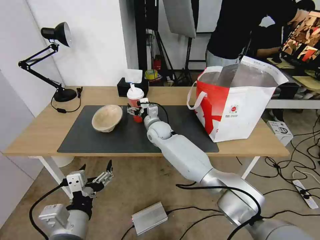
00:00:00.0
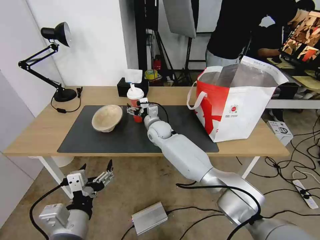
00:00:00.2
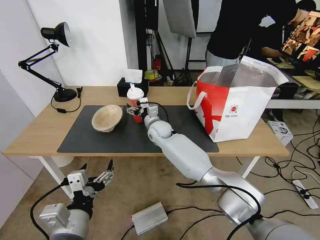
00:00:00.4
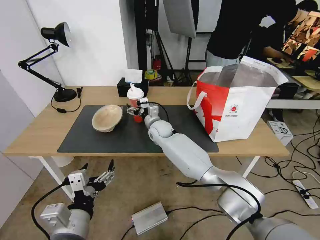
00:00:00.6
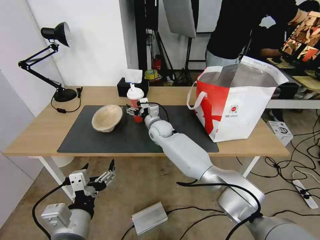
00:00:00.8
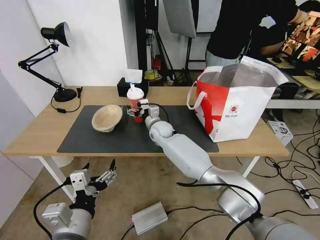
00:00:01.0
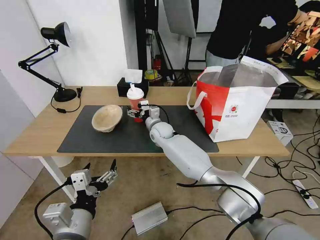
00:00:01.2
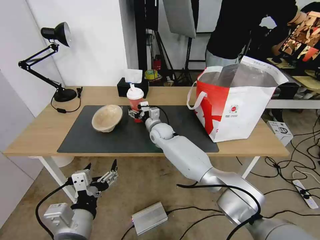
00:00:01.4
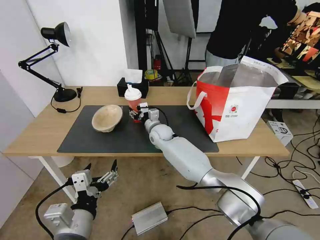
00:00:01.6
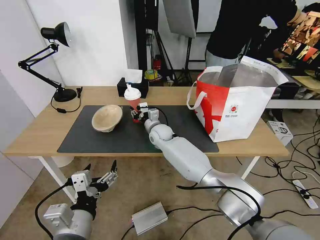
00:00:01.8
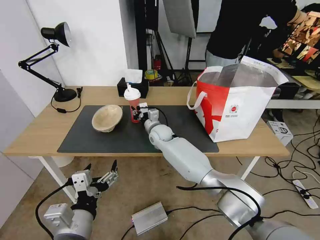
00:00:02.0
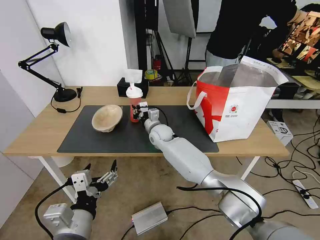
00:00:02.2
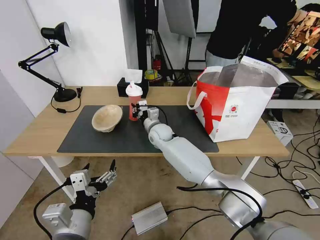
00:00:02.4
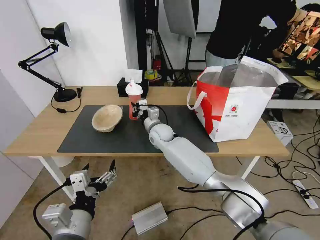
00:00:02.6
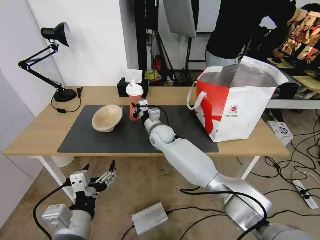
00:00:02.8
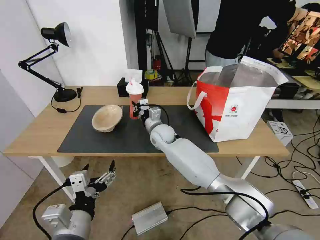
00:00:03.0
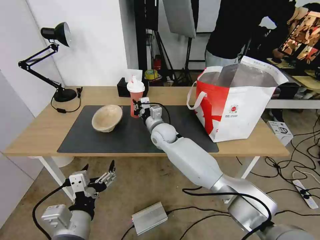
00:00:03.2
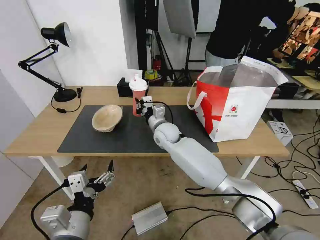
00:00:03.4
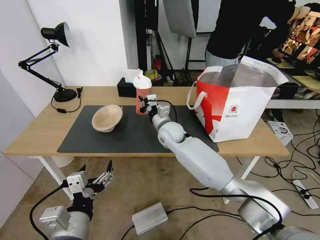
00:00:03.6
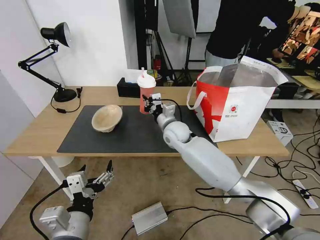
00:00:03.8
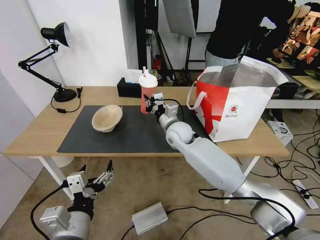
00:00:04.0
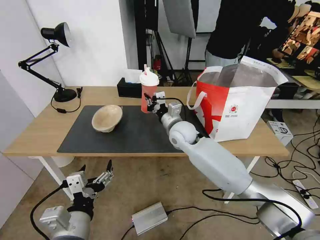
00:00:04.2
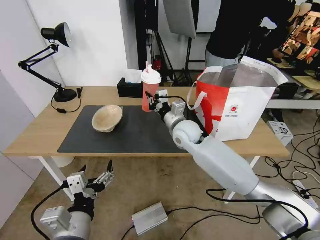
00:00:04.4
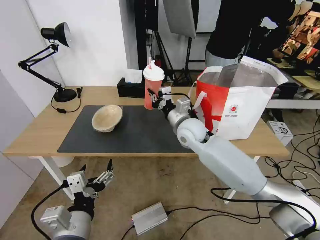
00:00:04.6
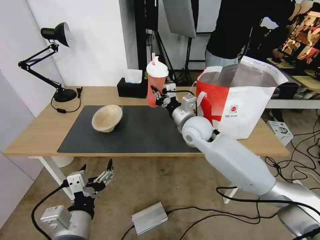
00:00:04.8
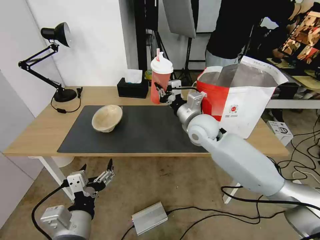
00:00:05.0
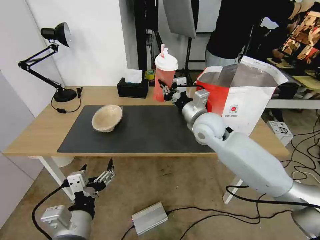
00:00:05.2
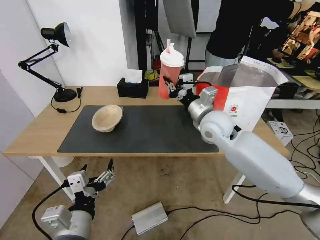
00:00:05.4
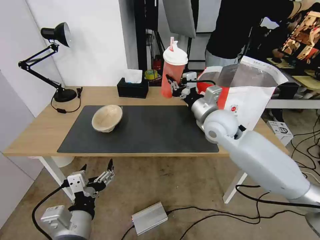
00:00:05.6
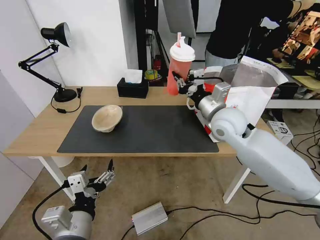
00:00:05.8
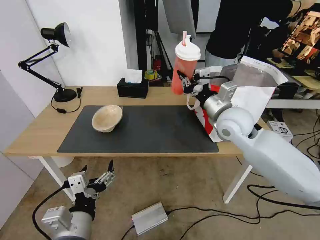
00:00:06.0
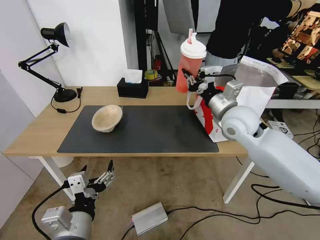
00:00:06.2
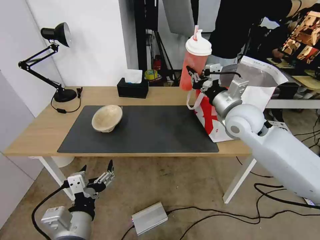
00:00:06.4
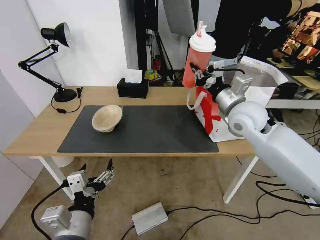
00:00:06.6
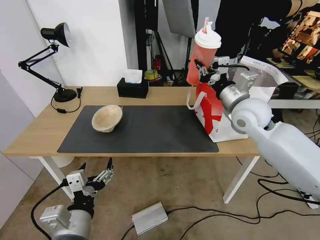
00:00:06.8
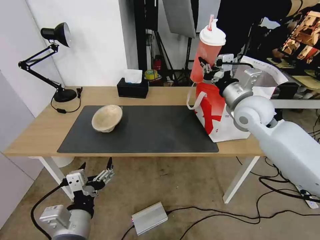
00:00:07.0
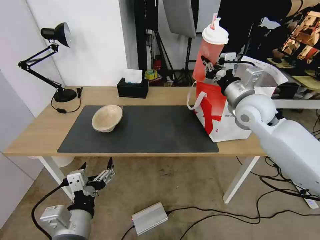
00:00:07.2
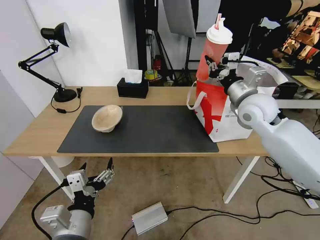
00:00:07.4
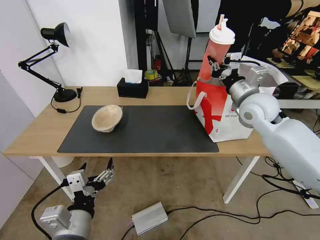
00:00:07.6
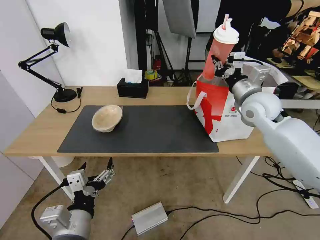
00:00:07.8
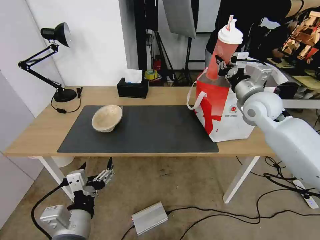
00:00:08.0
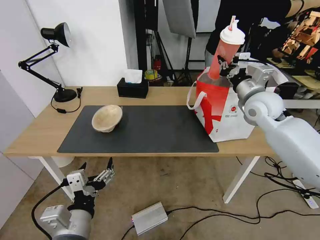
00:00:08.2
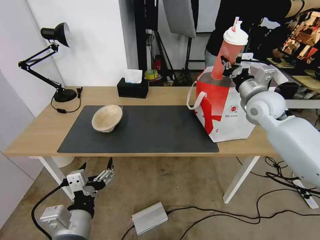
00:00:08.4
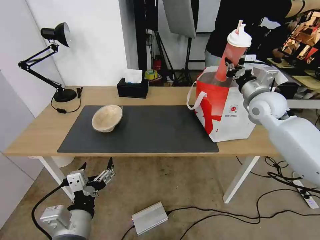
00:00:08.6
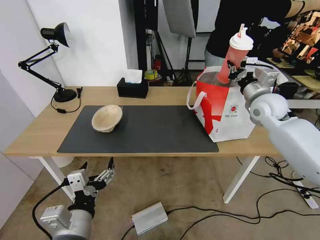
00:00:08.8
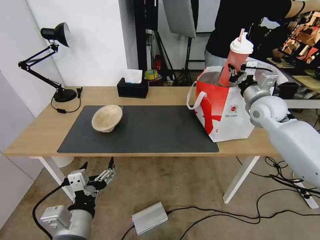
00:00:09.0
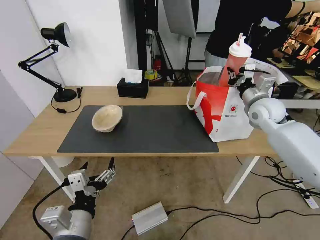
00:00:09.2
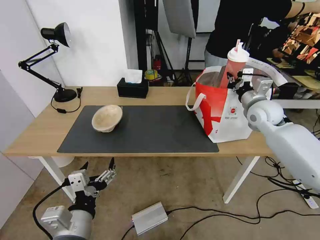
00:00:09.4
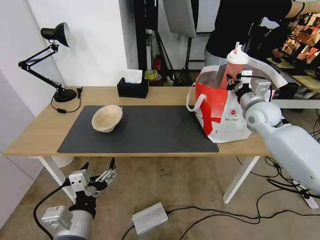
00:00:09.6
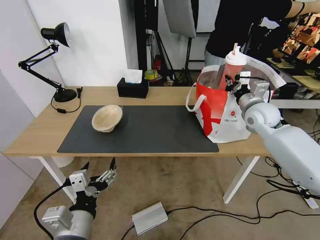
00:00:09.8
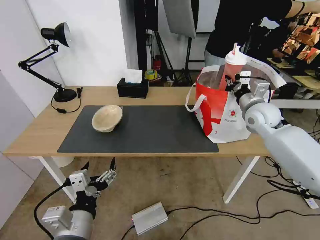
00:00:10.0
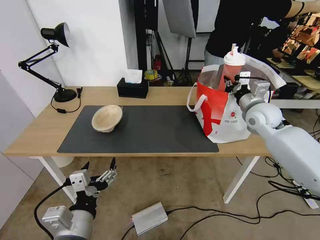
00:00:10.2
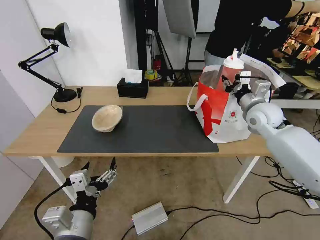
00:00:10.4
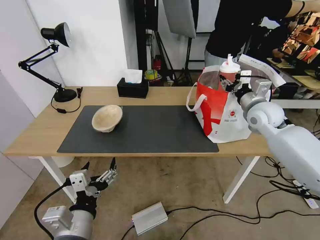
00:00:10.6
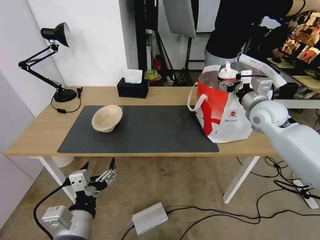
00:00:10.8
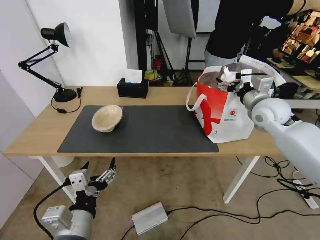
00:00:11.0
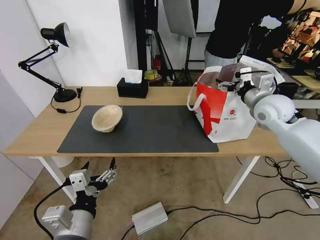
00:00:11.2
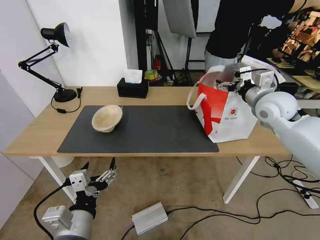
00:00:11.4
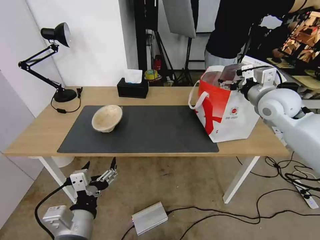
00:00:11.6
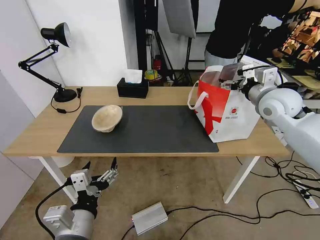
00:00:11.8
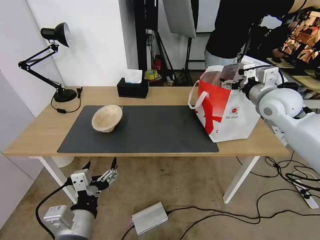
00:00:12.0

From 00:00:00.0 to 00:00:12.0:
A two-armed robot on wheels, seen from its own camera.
Task of the whole recording: Pick up the trash from the table and place it into the takeout bag.
From 00:00:00.0 to 00:00:01.6: The right gripper closes.
From 00:00:01.6 to 00:00:03.0: The right gripper closes its fingers.
From 00:00:03.0 to 00:00:04.4: The right gripper moves to the right and upward, about 10 cm.
From 00:00:04.4 to 00:00:06.0: The right gripper shifts roughly 15 cm to the right and upward.
From 00:00:06.0 to 00:00:07.6: The right gripper travels to the right by roughly 5 cm.
From 00:00:07.6 to 00:00:09.0: The right gripper heads to the right, covering about 5 cm.
From 00:00:09.0 to 00:00:10.4: The grippers move only a little.
From 00:00:10.4 to 00:00:12.0: The right gripper shifts some 5 cm upward, and opens.

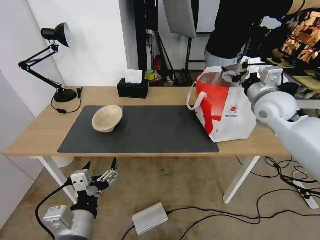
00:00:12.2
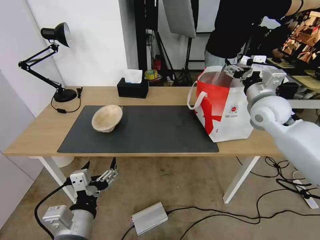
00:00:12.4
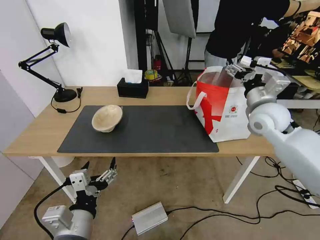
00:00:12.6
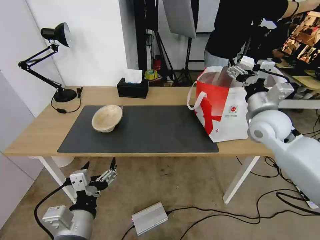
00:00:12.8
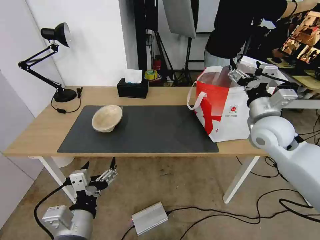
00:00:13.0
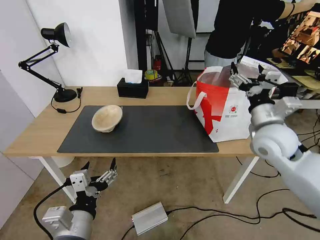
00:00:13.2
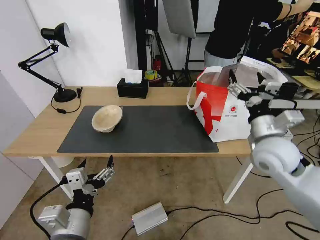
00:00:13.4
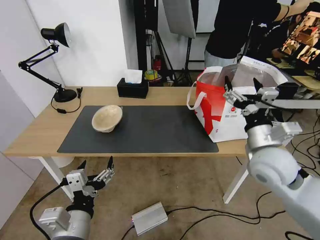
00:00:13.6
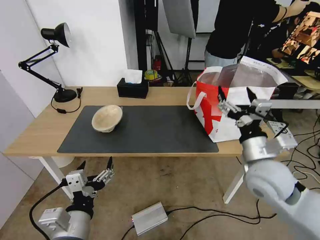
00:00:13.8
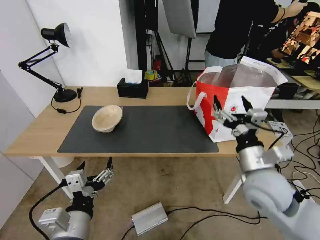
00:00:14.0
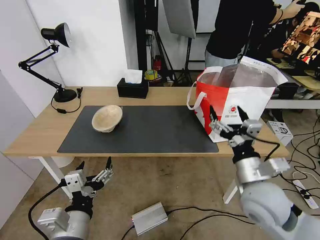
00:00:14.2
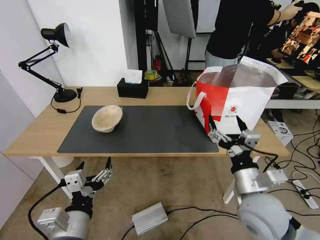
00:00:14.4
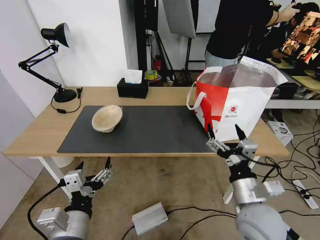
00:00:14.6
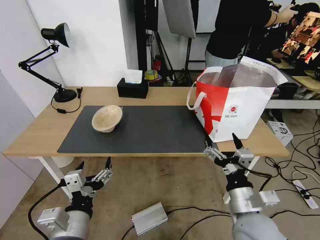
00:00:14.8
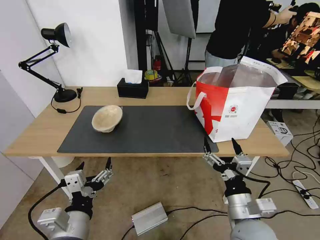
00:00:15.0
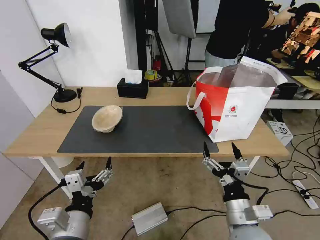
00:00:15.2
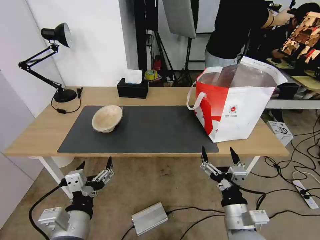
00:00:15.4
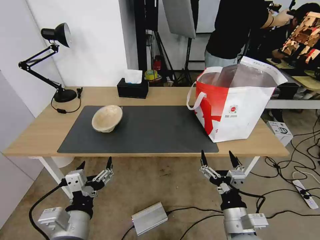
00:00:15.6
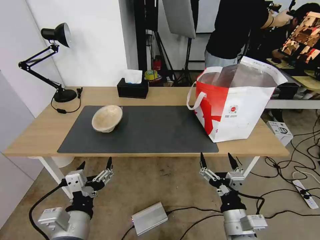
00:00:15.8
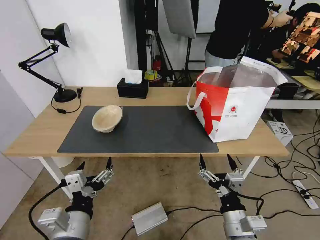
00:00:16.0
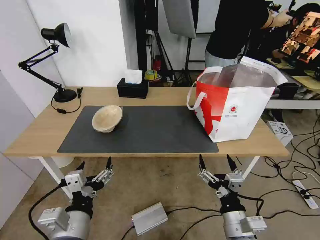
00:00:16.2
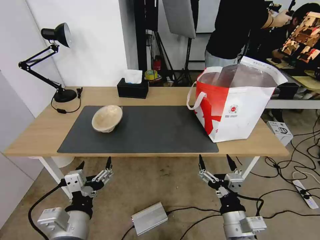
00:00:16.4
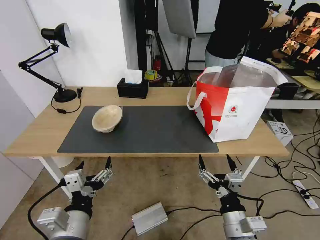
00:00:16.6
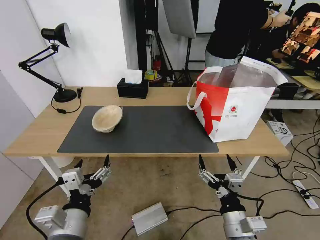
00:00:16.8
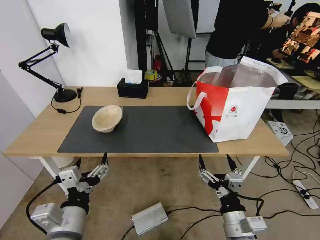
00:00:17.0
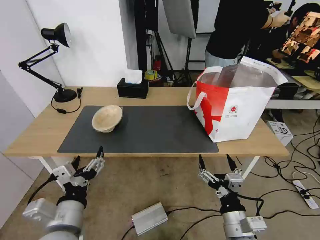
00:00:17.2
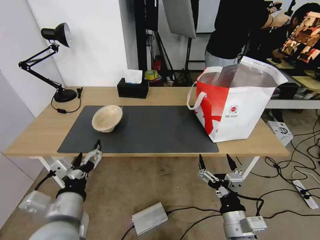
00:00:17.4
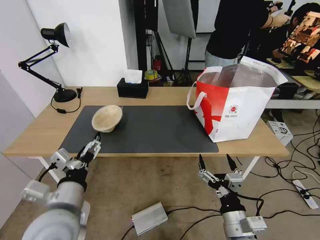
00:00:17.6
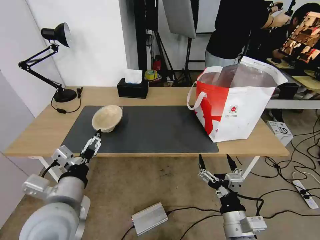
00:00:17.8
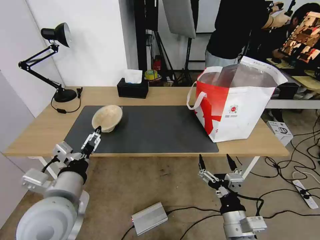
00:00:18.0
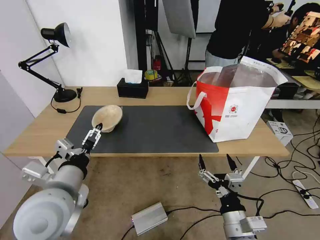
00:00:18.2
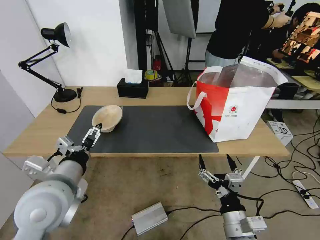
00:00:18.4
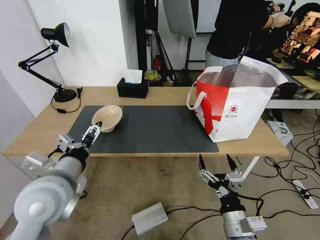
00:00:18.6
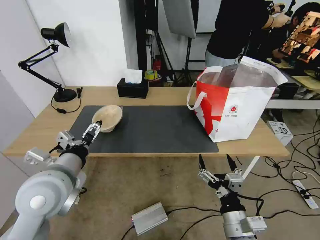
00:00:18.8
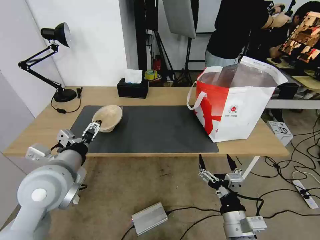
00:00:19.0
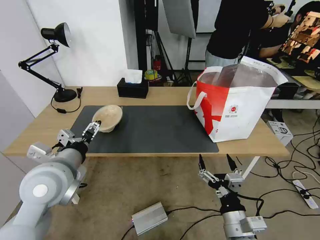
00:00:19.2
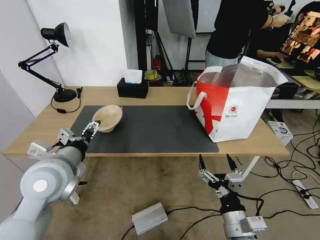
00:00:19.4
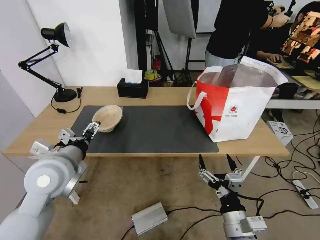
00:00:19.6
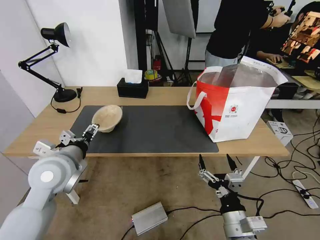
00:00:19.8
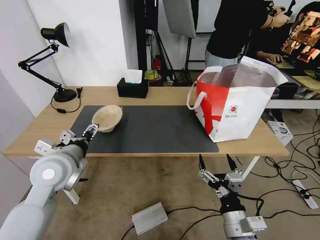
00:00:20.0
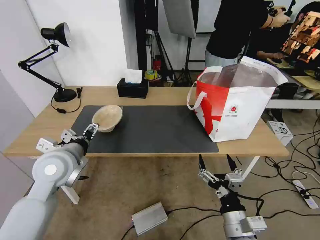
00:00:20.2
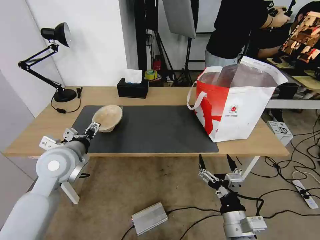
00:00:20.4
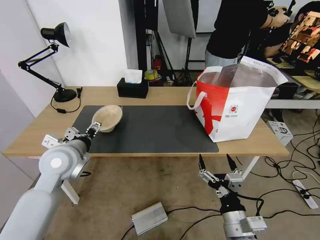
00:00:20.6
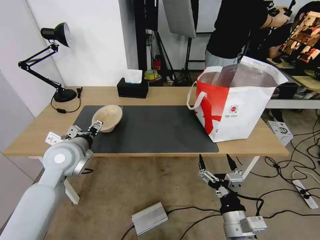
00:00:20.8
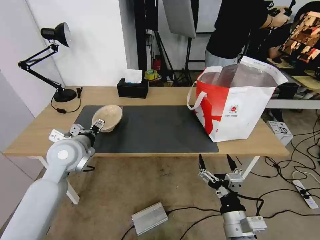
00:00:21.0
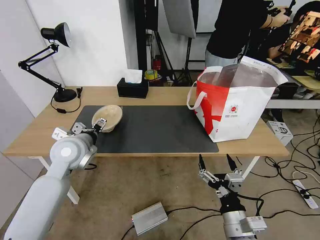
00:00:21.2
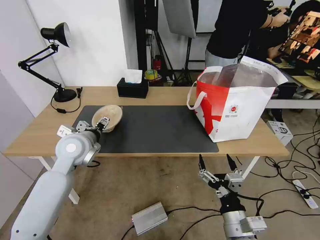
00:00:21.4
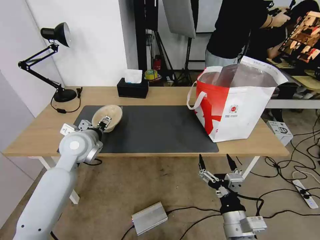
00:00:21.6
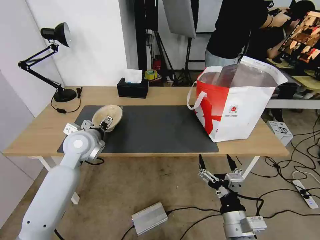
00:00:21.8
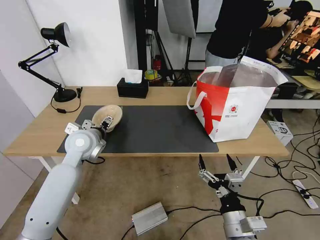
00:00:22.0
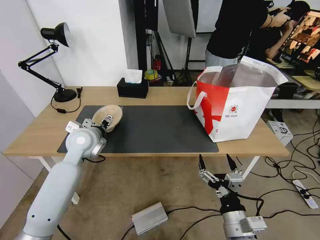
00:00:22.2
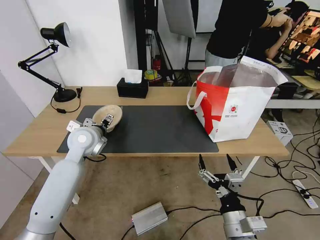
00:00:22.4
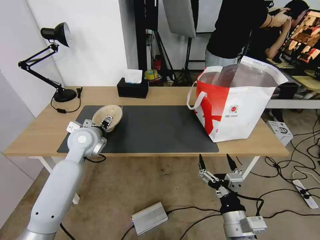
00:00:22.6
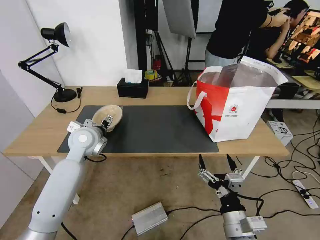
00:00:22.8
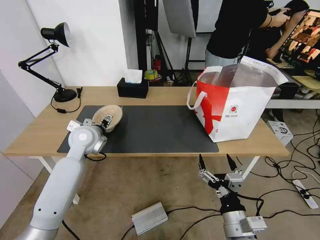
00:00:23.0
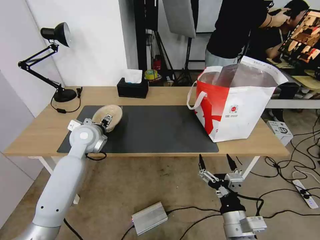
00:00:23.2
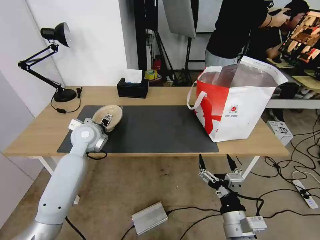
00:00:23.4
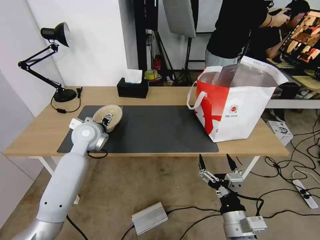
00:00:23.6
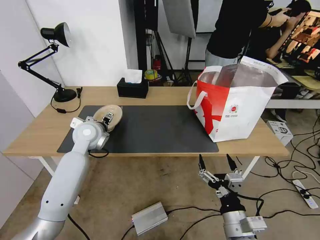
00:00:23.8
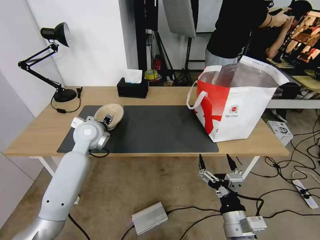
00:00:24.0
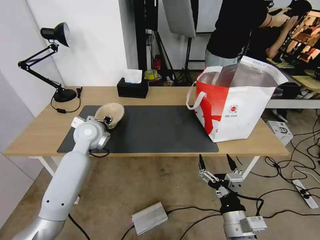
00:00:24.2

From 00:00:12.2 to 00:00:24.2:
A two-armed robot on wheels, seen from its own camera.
Task of the whole recording: Pick up the trash from the table and place it into the takeout bag.
From 00:00:12.2 to 00:00:13.8: The right gripper travels backward and downward by roughly 20 cm.
From 00:00:13.8 to 00:00:15.2: The right gripper is displaced backward and downward by about 15 cm.
From 00:00:15.2 to 00:00:16.6: The grippers make only small movements.
From 00:00:16.6 to 00:00:18.2: The left gripper is displaced forward and upward by about 10 cm.
From 00:00:18.2 to 00:00:19.8: The left gripper is displaced forward by roughly 10 cm.
From 00:00:19.8 to 00:00:21.2: The left gripper is displaced forward by about 10 cm.
From 00:00:21.2 to 00:00:22.6: The left gripper goes approximately 5 cm forward.
From 00:00:22.6 to 00:00:24.2: The left gripper closes.
